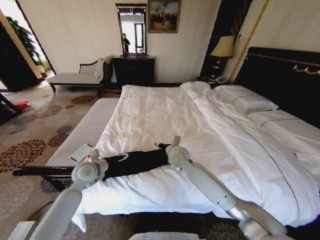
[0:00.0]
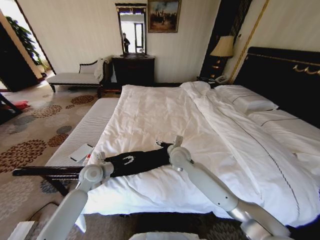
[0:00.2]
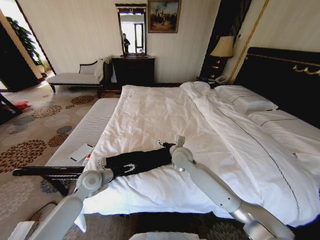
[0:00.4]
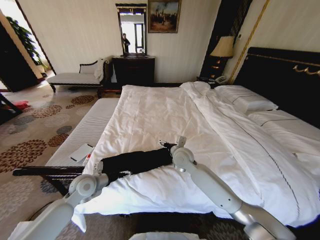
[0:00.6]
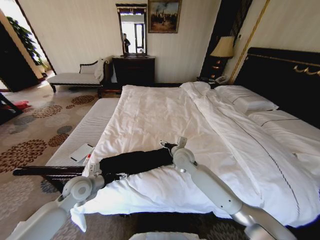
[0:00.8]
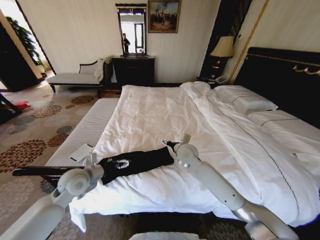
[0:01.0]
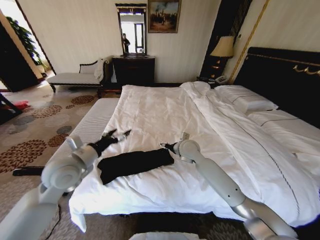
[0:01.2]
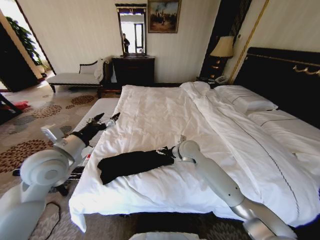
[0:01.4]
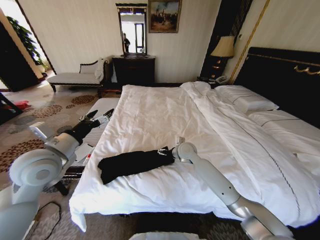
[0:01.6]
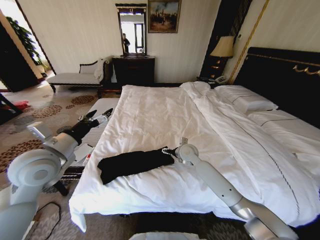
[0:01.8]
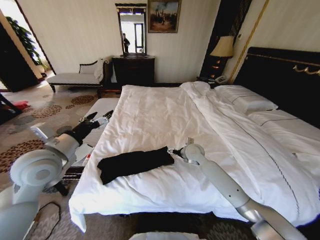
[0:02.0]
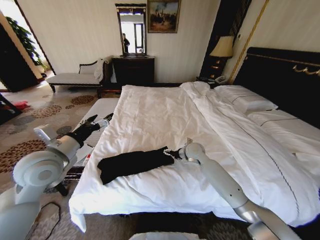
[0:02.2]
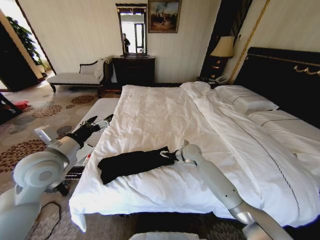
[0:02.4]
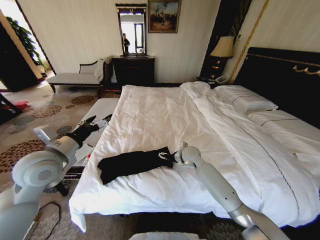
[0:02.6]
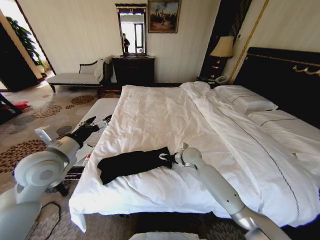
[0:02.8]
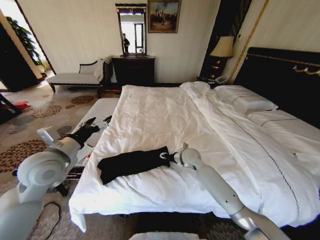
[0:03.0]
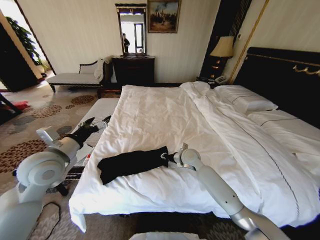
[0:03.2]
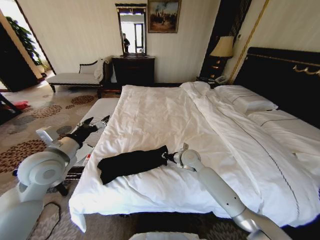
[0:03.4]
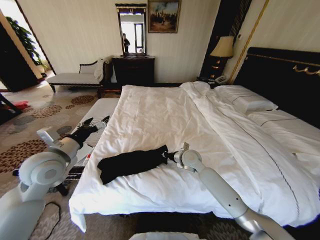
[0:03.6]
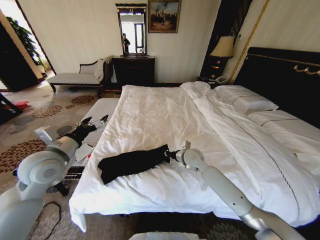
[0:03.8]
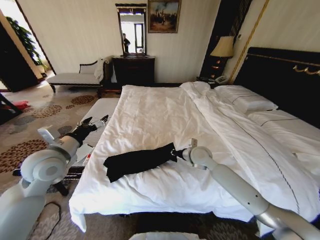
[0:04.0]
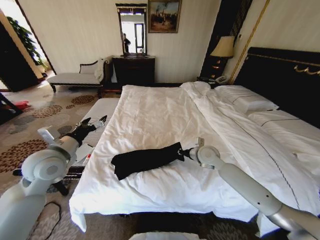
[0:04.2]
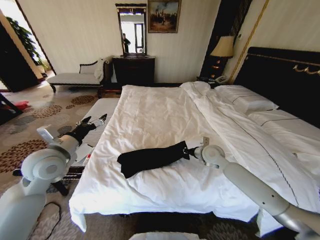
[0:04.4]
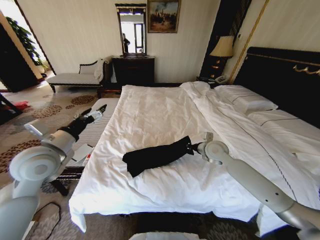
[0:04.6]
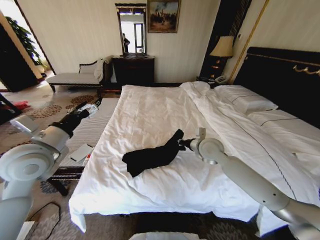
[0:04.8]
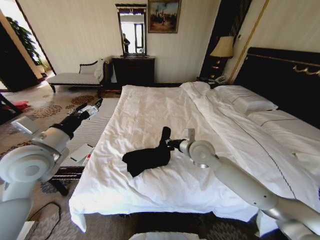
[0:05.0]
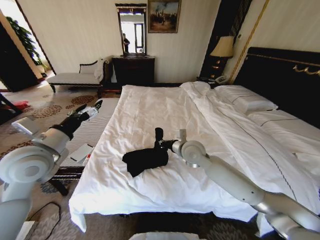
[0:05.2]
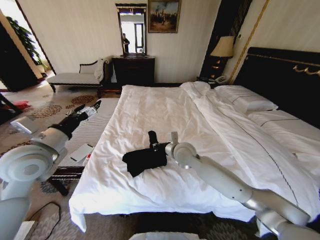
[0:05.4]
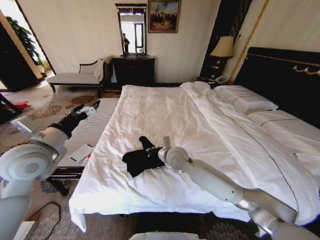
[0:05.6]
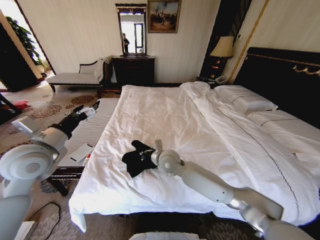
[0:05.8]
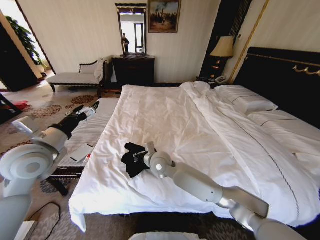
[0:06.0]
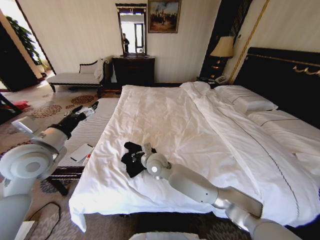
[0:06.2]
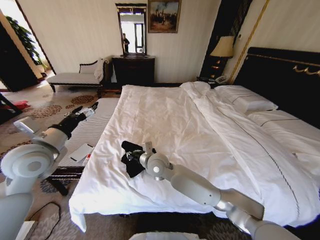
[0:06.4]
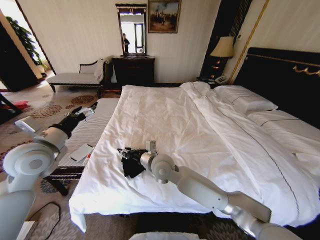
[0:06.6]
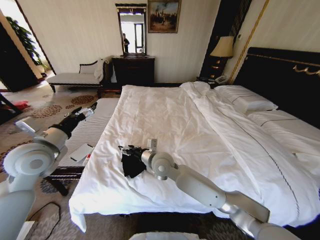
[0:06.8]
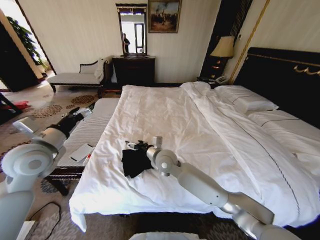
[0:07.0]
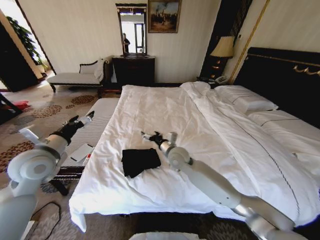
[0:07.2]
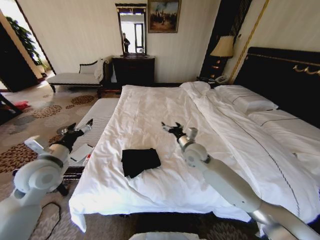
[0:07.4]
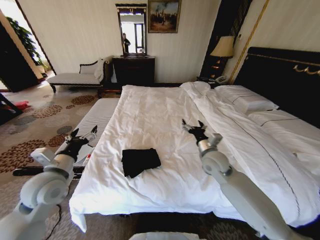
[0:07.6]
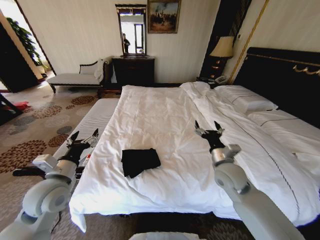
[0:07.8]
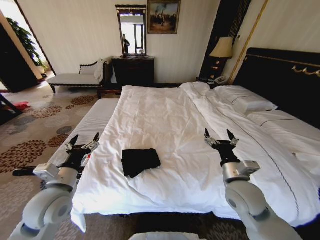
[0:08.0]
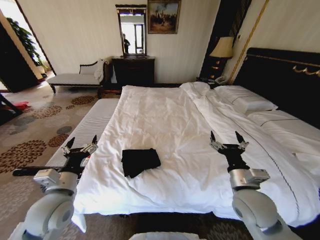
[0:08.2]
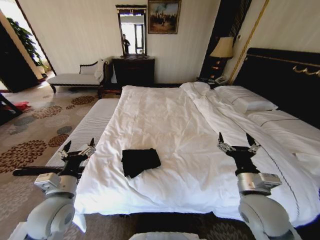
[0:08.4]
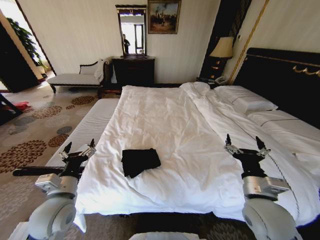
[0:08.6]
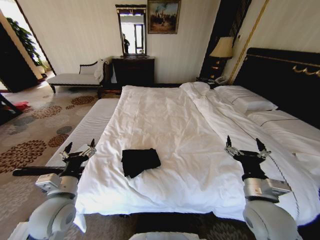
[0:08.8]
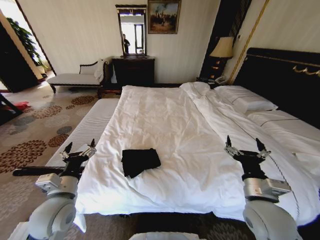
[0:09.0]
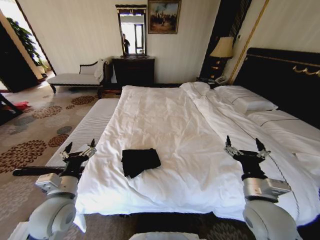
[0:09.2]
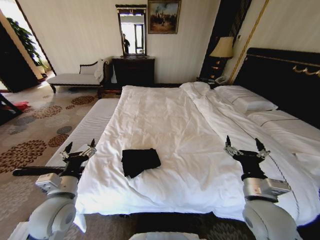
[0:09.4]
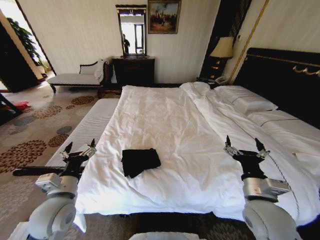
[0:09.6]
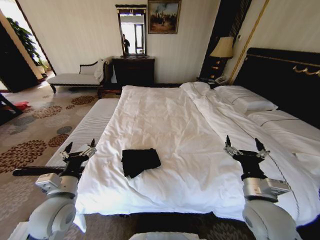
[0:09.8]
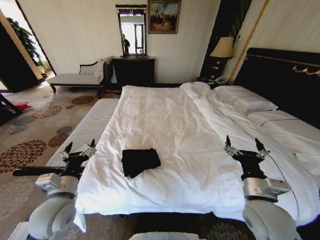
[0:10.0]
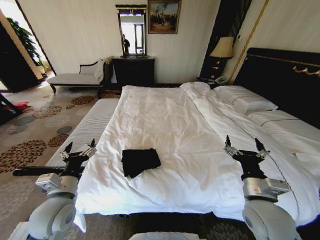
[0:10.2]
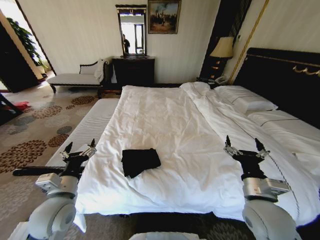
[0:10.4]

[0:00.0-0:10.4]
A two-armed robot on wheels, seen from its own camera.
Task of the whole recording: Fold the clothes on the bed.
0:00.0 to 0:01.4: The right gripper heads to the right, covering approximately 5 cm. Meanwhile the left gripper travels upward by approximately 15 cm.
0:01.4 to 0:03.0: The right gripper is displaced downward by some 5 cm, and closes up.
0:03.0 to 0:04.4: The right gripper travels to the right by approximately 10 cm, and closes up.
0:04.4 to 0:06.0: The right gripper goes roughly 25 cm to the left.
0:06.0 to 0:07.4: The right gripper heads to the right, covering approximately 15 cm, and opens; the left gripper moves downward, about 5 cm.
0:07.4 to 0:09.0: The right gripper shifts approximately 25 cm backward and to the right; the left gripper shifts some 15 cm backward, downward and to the right.
0:09.0 to 0:10.4: Both grippers stay about where they are.

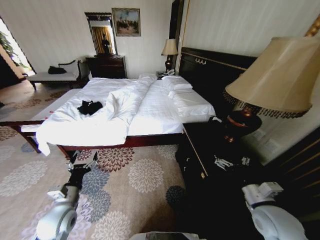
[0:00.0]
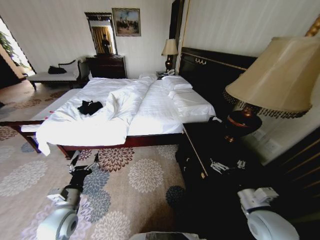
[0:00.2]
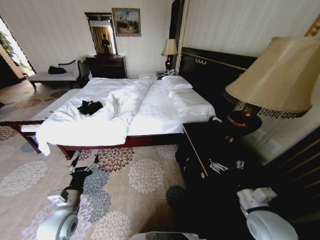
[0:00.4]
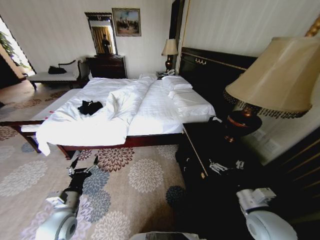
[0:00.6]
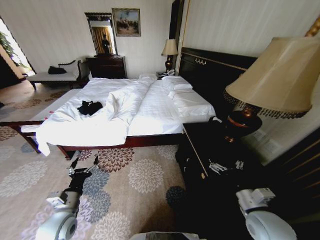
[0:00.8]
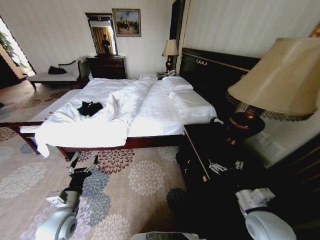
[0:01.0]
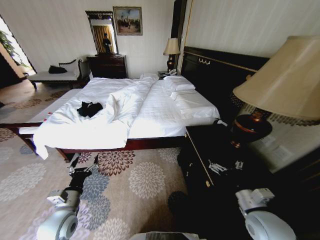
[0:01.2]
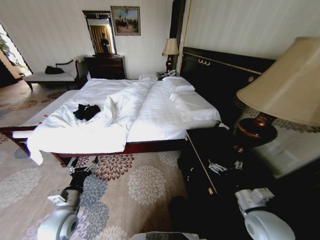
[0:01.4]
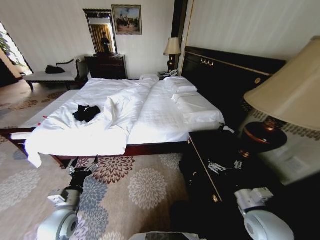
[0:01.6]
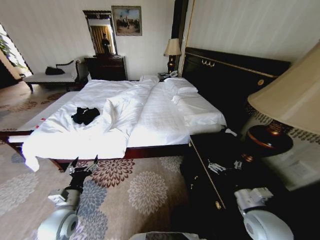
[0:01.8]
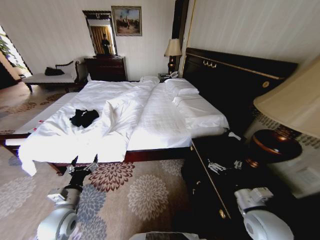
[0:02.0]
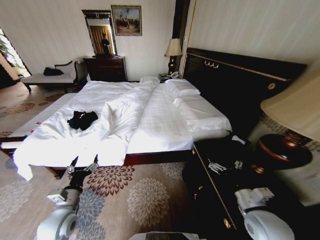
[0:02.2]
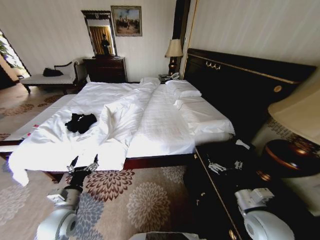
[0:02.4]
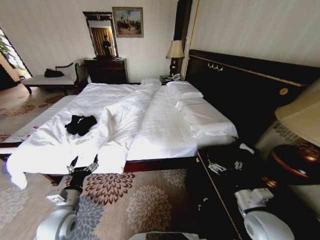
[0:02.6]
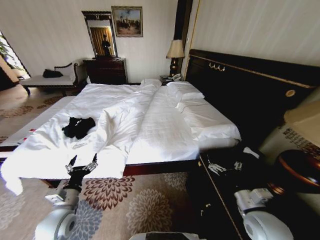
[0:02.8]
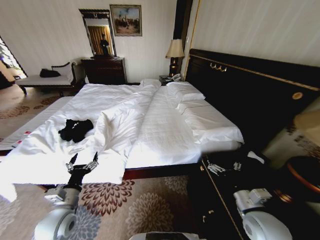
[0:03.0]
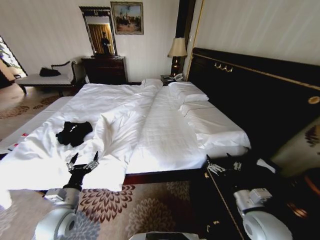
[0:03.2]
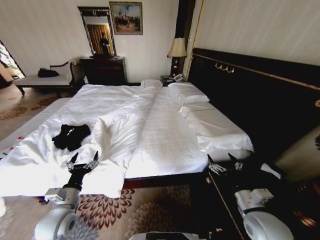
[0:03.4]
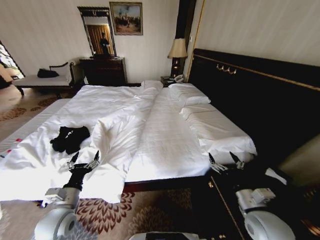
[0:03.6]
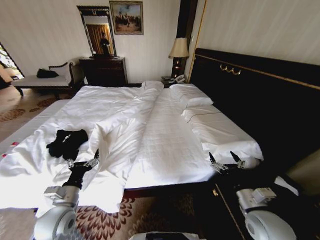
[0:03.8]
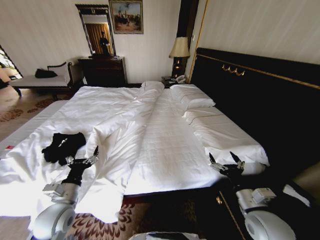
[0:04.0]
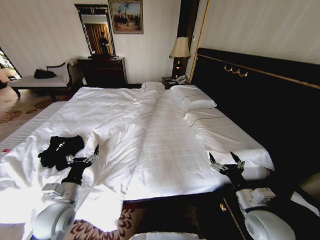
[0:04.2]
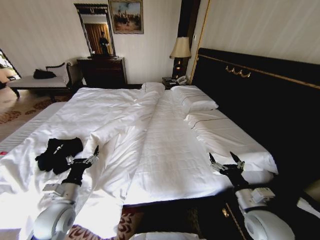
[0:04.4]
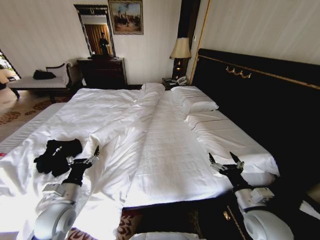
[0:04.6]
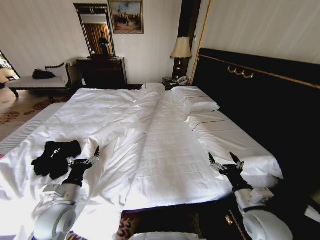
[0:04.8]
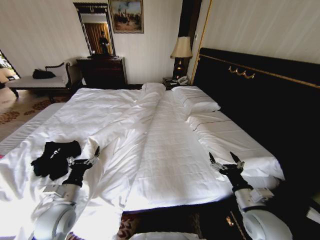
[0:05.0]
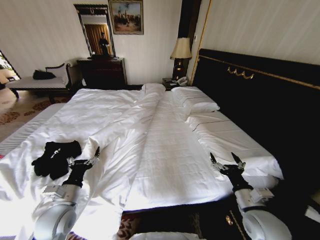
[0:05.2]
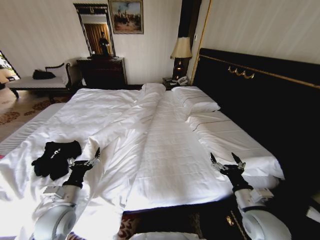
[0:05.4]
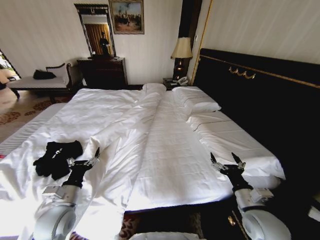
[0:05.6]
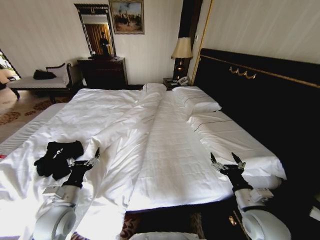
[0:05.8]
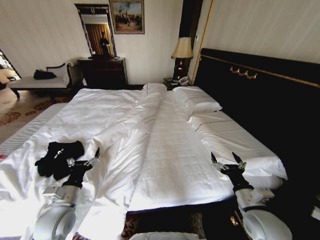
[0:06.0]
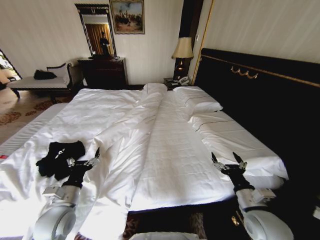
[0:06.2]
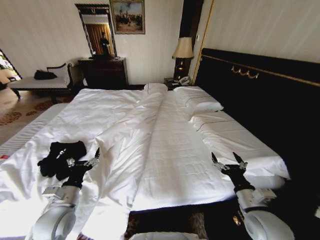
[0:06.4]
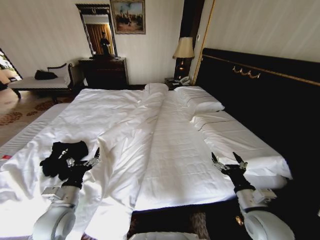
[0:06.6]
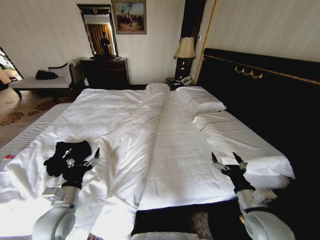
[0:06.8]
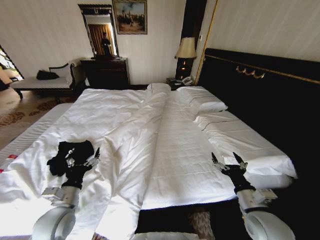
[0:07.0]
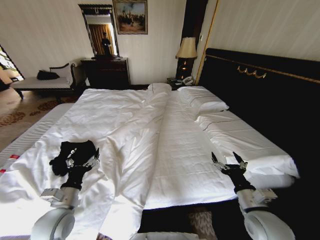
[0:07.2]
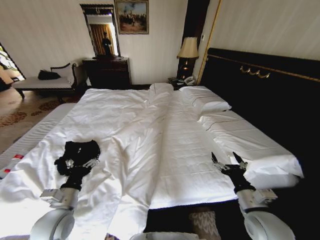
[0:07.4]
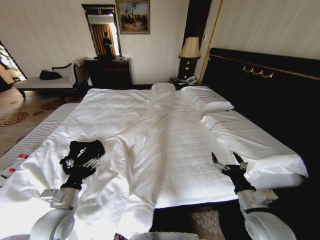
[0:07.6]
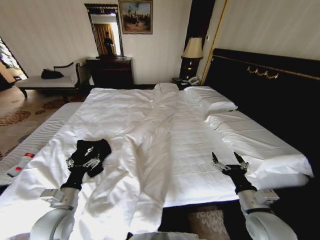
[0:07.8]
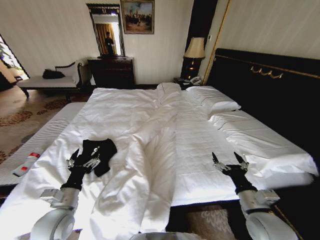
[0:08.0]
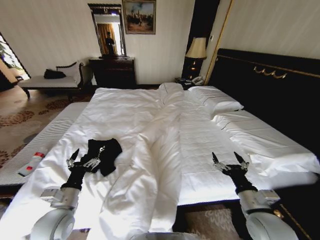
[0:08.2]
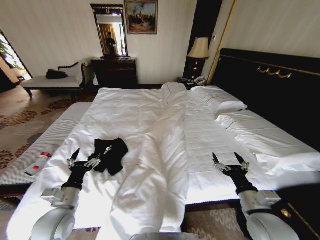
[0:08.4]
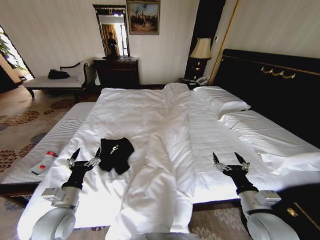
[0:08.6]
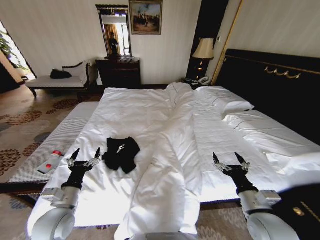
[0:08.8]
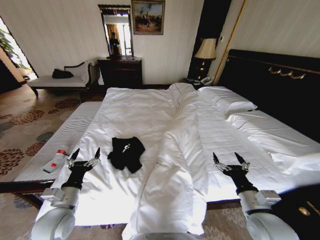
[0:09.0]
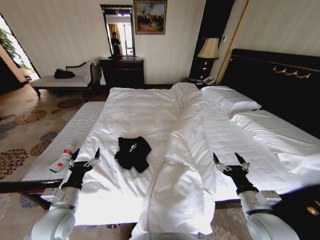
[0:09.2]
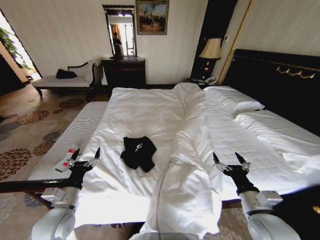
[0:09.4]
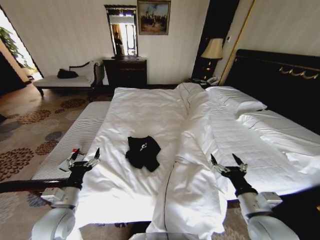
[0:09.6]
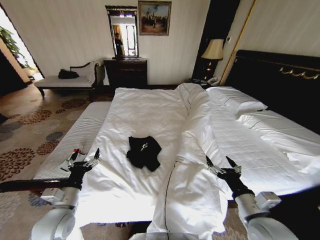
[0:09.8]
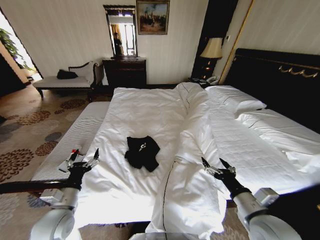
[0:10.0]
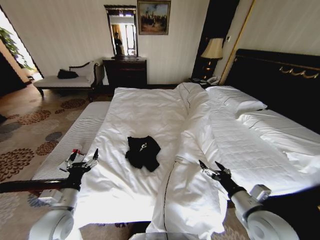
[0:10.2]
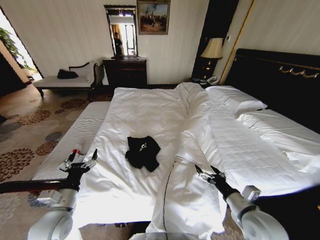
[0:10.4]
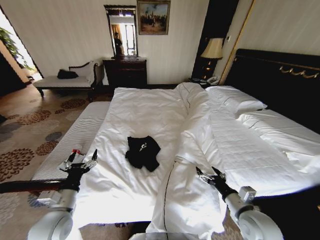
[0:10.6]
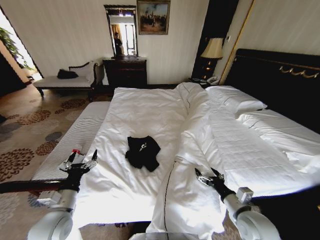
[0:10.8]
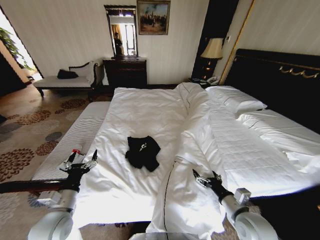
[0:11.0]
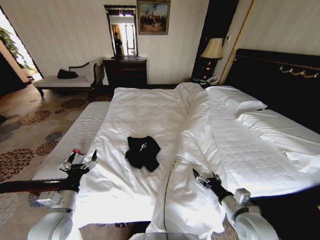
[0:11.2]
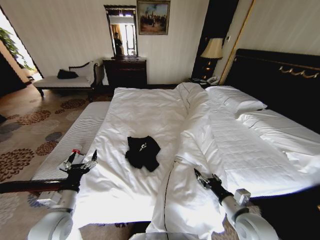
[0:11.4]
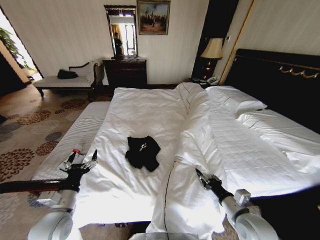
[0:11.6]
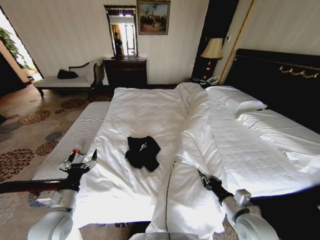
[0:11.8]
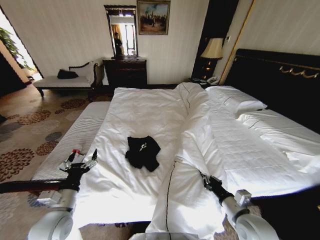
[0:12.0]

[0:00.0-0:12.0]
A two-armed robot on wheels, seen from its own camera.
Task of the whole recording: Fold the clothes on the bed.
0:04.4 to 0:06.0: Both grippers stay put.
0:10.4 to 0:12.0: The right gripper closes.
